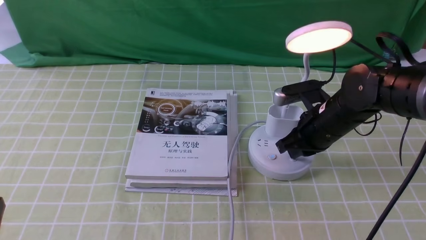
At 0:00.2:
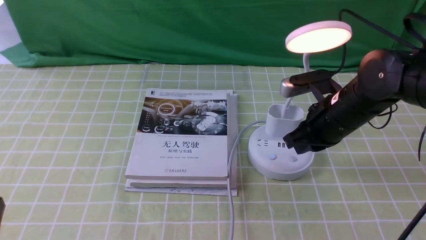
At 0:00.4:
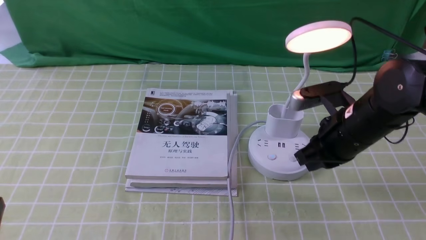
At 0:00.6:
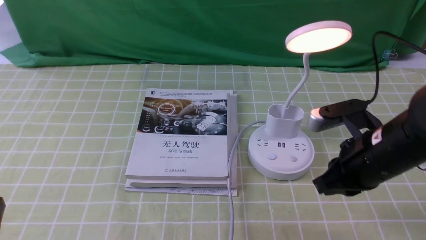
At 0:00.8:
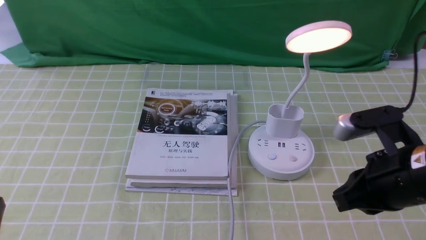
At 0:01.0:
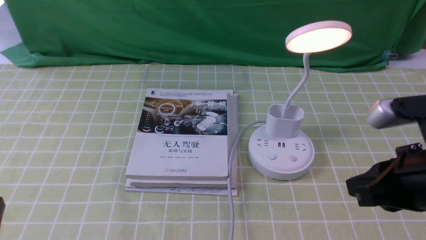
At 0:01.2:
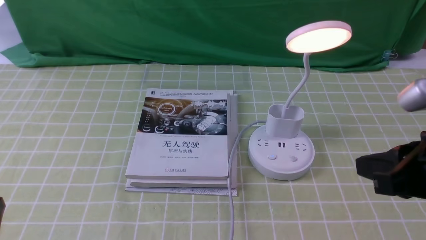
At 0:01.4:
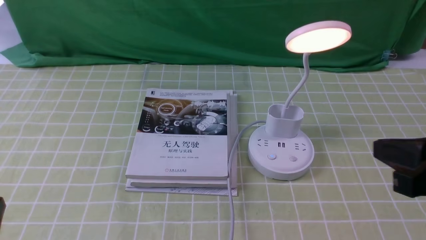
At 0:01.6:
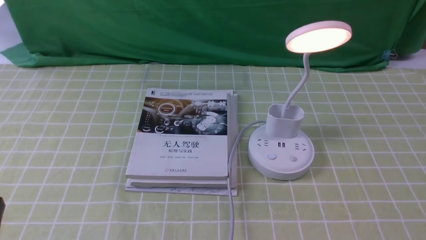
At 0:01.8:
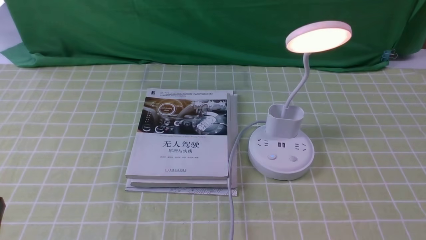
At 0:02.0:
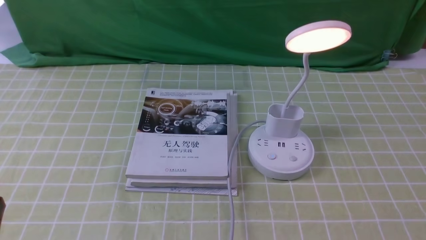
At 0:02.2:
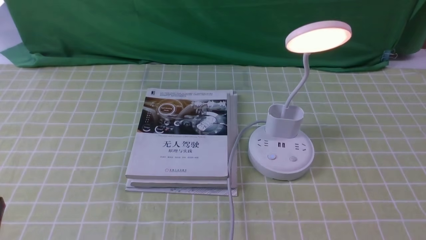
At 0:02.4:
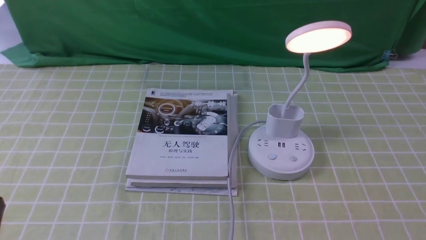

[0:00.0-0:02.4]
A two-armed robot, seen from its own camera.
0:00.0 to 0:01.2: The right gripper heads backward and upward, covering roughly 20 cm.
0:01.2 to 0:02.4: The right gripper goes some 15 cm downward, backward and to the right.
